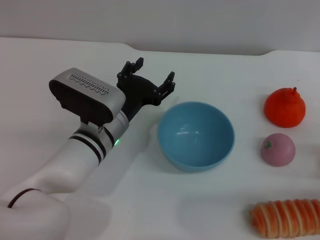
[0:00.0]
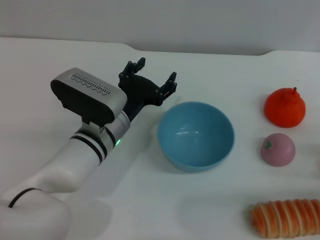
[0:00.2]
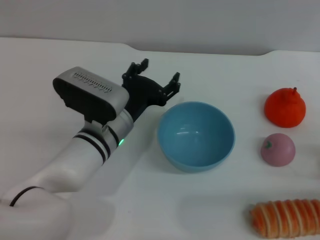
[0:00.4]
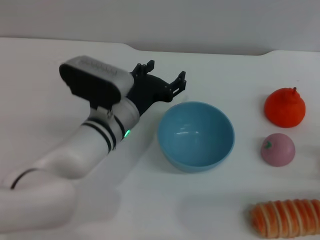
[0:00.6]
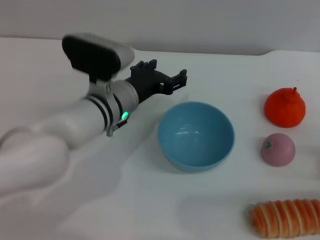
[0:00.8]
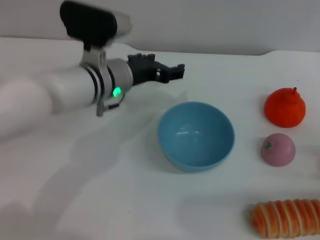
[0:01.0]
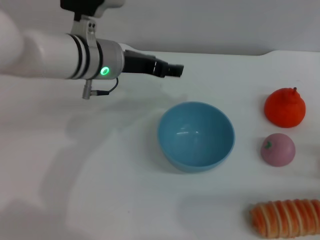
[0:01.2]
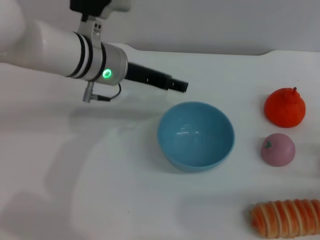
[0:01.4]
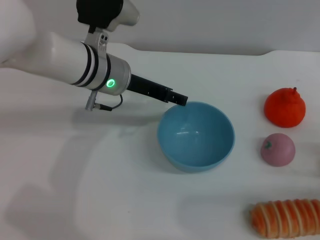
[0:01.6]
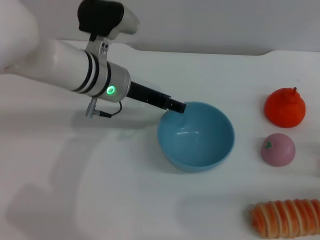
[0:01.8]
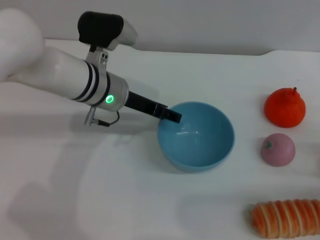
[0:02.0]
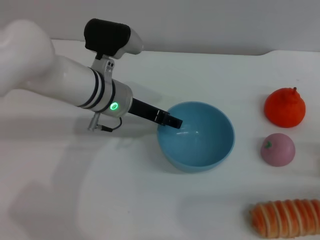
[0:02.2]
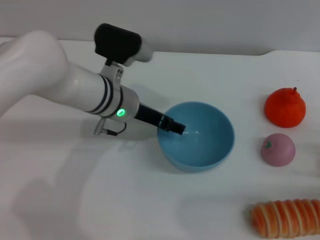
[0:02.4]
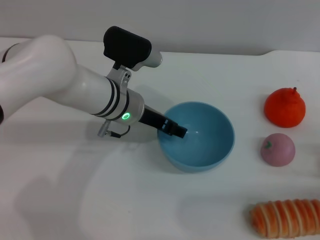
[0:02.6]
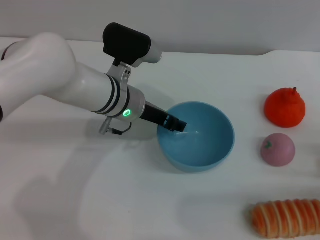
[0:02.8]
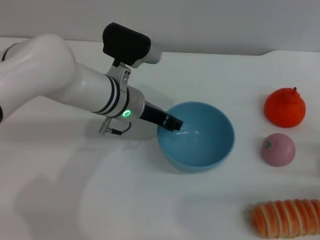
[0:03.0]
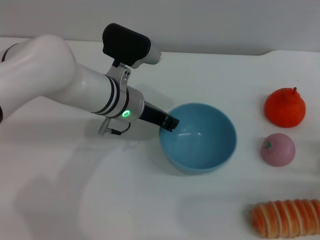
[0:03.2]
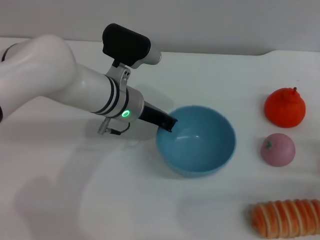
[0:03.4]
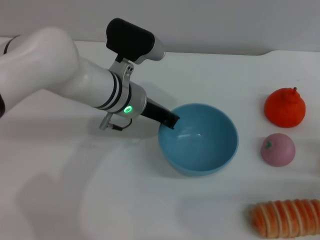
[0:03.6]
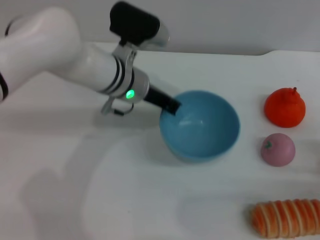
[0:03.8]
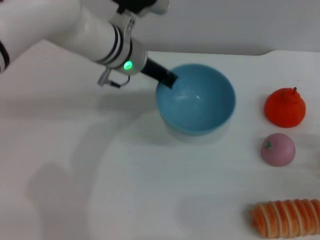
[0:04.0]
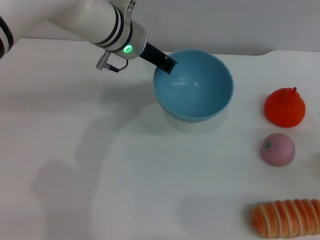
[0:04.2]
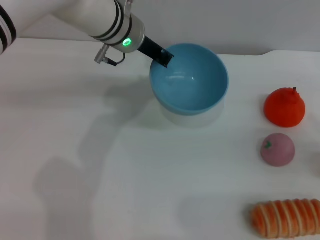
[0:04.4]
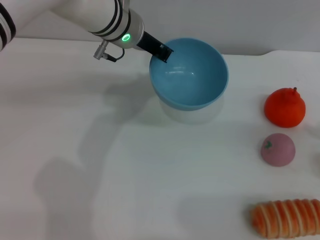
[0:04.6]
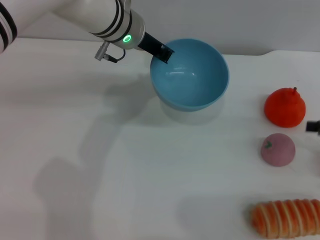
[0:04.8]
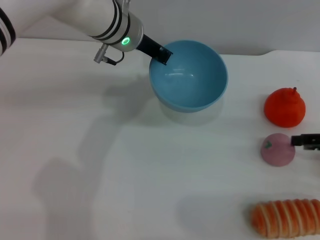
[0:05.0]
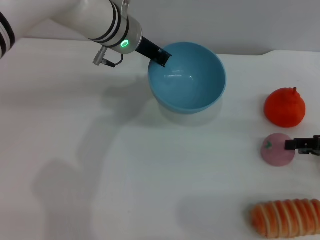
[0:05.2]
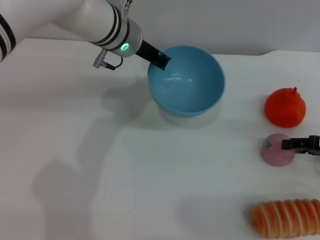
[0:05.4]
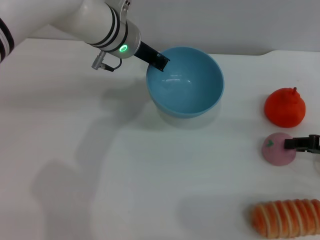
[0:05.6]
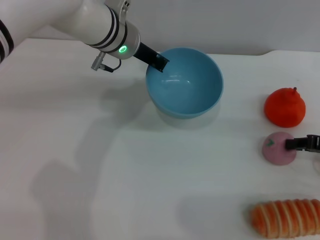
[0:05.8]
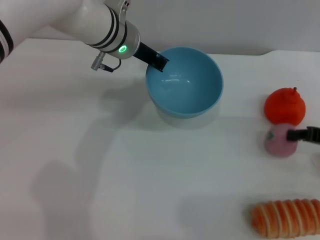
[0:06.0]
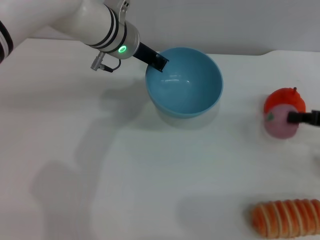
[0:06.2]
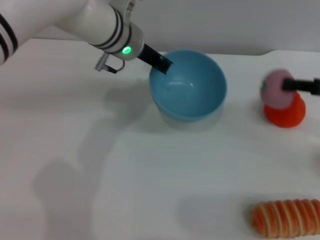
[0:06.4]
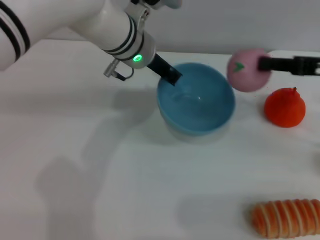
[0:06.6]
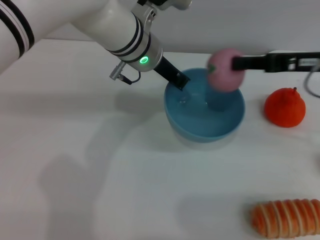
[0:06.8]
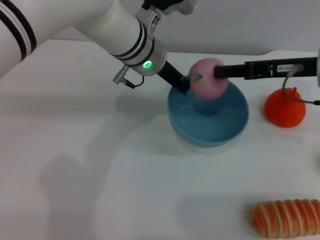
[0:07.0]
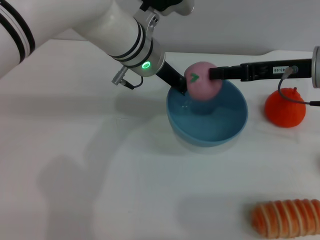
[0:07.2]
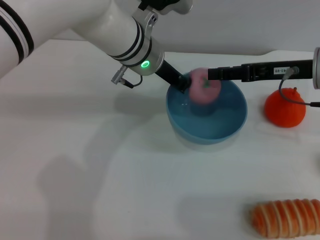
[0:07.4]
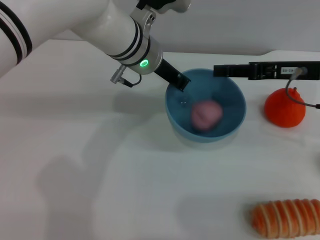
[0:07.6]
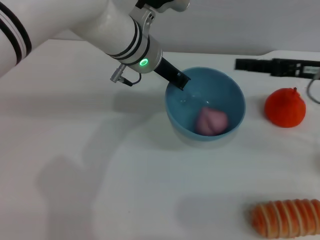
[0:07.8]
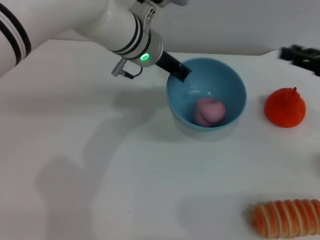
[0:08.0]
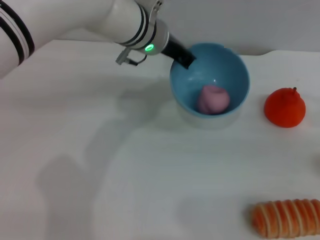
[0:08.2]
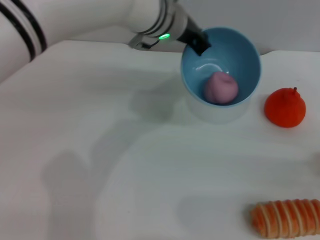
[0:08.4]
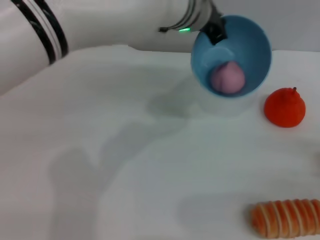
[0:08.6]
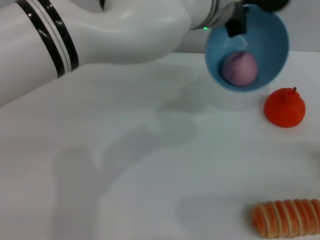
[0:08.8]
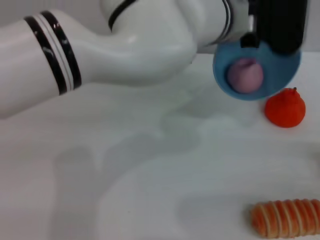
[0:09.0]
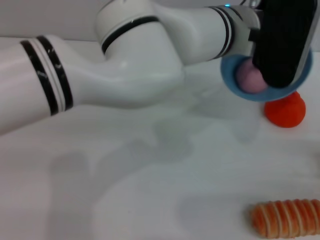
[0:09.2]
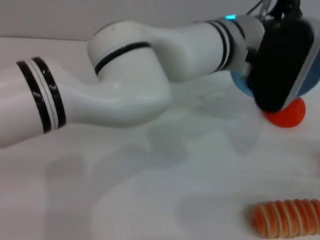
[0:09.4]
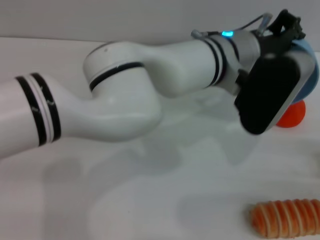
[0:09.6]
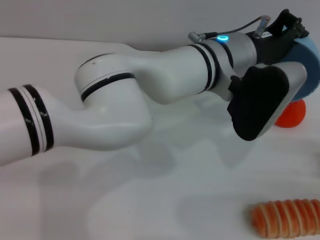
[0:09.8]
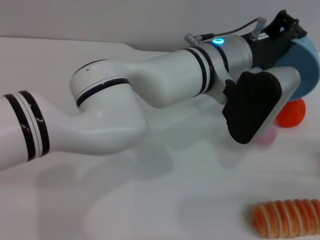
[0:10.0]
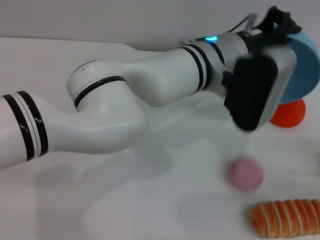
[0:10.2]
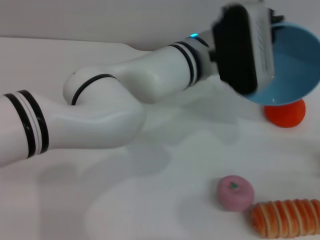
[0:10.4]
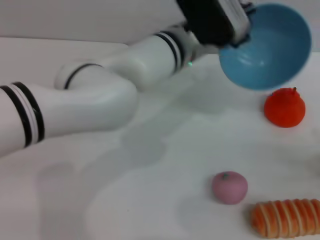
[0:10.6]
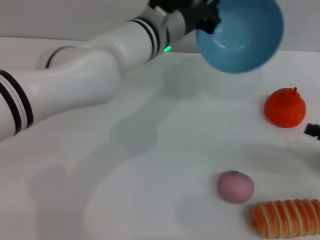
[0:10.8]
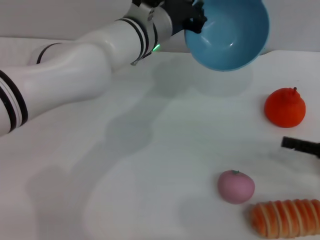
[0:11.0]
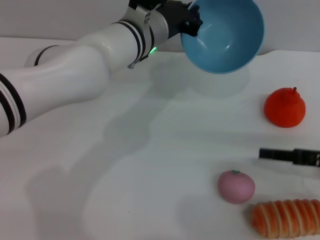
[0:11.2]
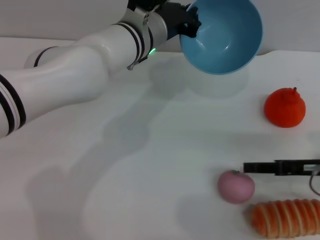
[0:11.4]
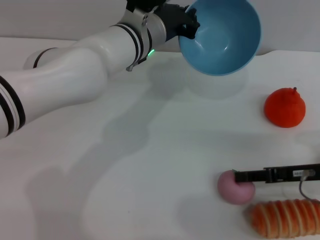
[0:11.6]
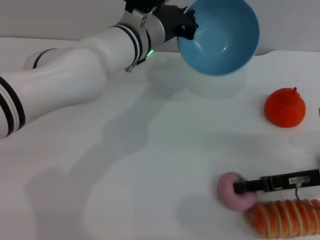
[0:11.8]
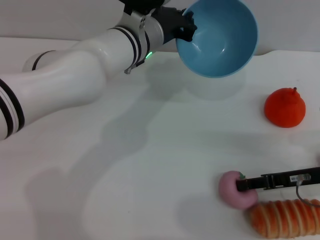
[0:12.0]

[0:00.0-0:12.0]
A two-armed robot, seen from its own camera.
Task of the whole recording: put the peach into the blue bowl and pour it out repeatedly.
Step, 0:00.0 to 0:03.6: Pick up the bowl with the left gripper.
Step, 0:03.8 to 0:06.2: Pick up the peach with the right gripper.
Step, 0:06.4 to 0:07.6: Place the peach into the bowl.
Step, 0:08.0 to 0:10.0: Pour the peach out of bowl.
0:00.0 to 0:01.6: The left gripper heads upward and forward, covering some 10 cm.
0:01.6 to 0:03.0: The left gripper ends up about 5 cm from where it was, and closes.
0:03.0 to 0:04.4: The right gripper is displaced upward by roughly 10 cm, while the left gripper heads upward and forward, covering some 10 cm, and closes.
0:04.4 to 0:06.0: The right gripper goes approximately 5 cm to the left and forward, and closes up.
0:06.0 to 0:07.6: The right gripper is displaced to the left and upward by approximately 15 cm, and opens up.
0:07.6 to 0:09.0: The left gripper travels to the right by roughly 10 cm. Meanwhile the right gripper heads to the right, backward and downward, covering roughly 25 cm.
0:09.0 to 0:10.4: The left gripper goes about 5 cm downward.
0:10.4 to 0:12.0: The right gripper is displaced to the left and forward by about 15 cm, while the left gripper heads to the left, covering some 10 cm.

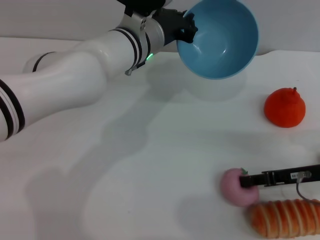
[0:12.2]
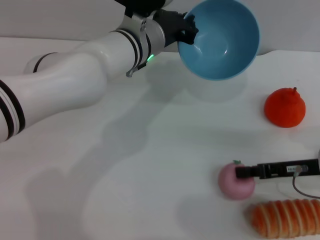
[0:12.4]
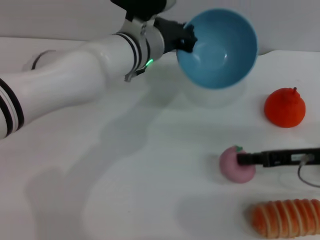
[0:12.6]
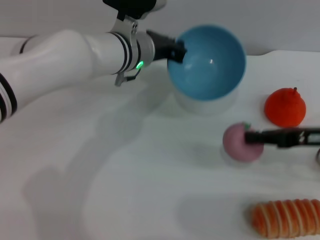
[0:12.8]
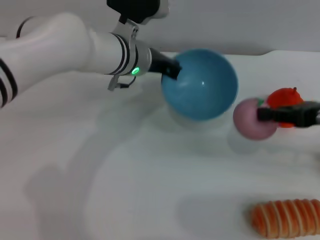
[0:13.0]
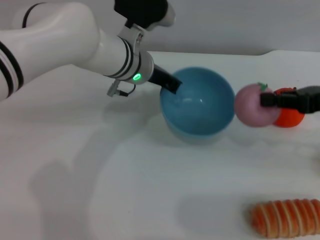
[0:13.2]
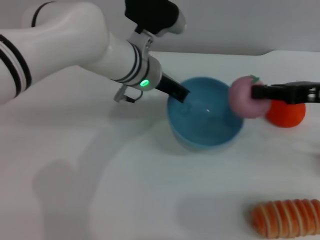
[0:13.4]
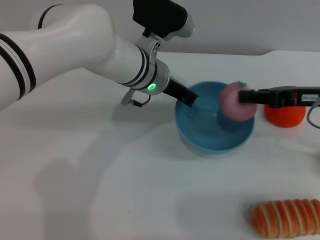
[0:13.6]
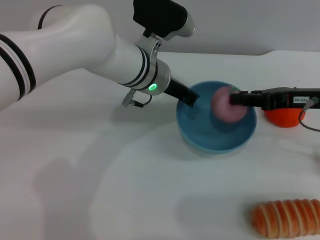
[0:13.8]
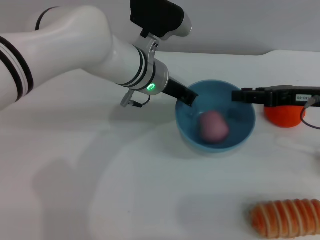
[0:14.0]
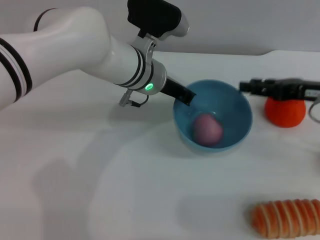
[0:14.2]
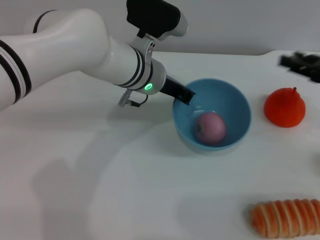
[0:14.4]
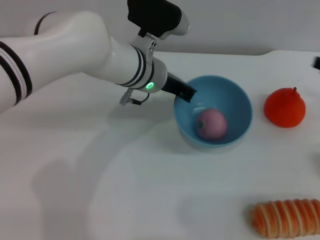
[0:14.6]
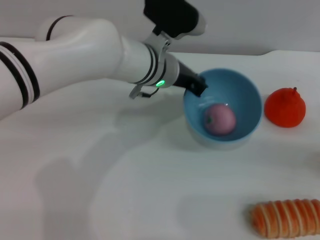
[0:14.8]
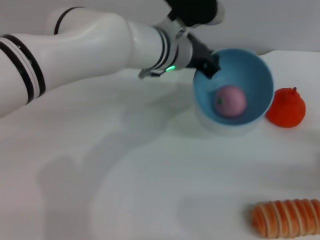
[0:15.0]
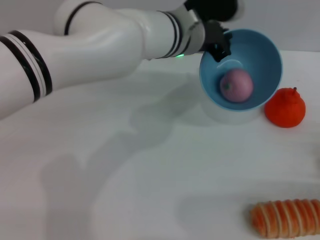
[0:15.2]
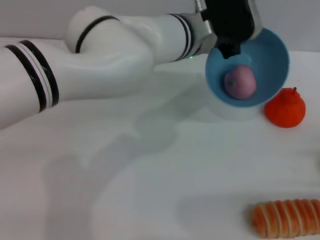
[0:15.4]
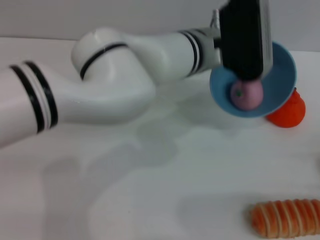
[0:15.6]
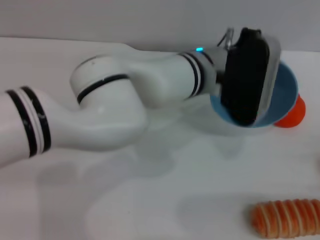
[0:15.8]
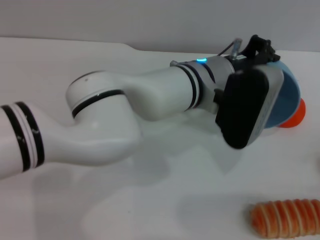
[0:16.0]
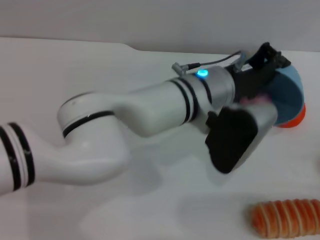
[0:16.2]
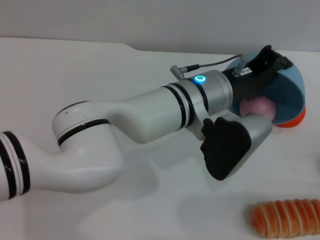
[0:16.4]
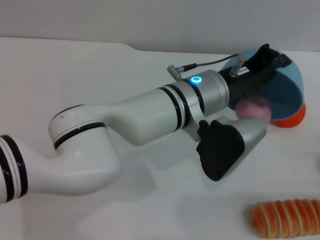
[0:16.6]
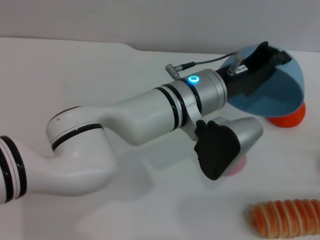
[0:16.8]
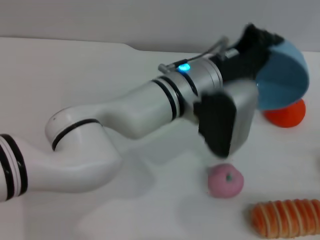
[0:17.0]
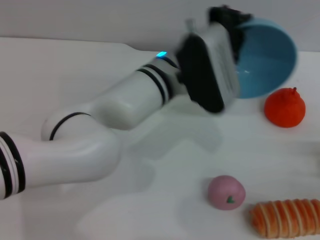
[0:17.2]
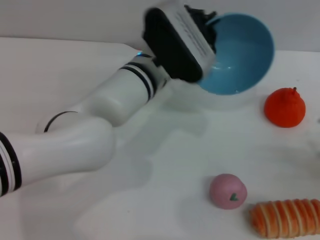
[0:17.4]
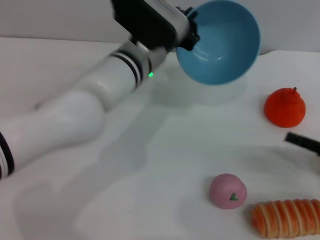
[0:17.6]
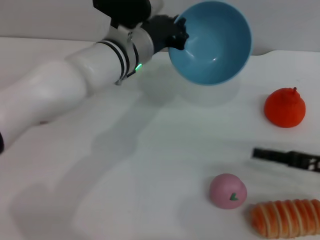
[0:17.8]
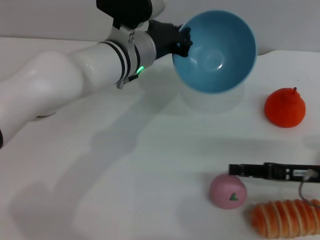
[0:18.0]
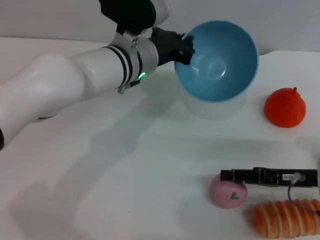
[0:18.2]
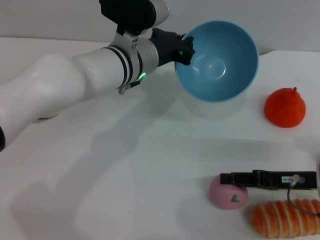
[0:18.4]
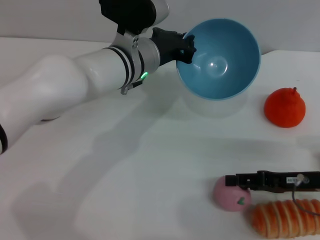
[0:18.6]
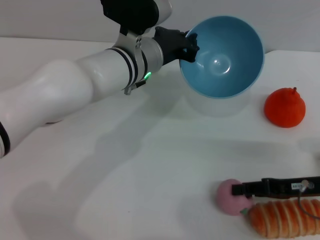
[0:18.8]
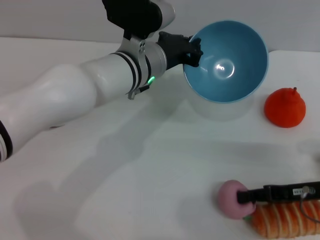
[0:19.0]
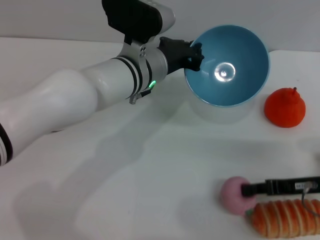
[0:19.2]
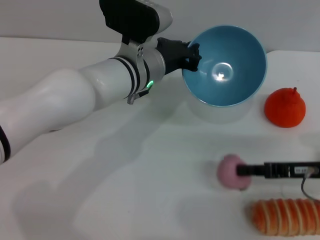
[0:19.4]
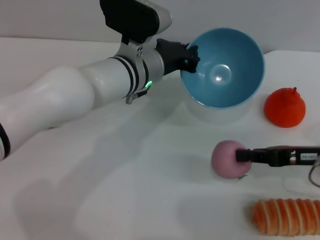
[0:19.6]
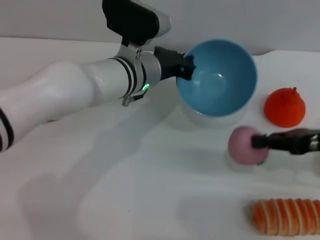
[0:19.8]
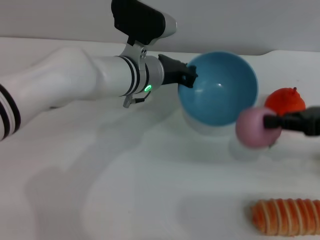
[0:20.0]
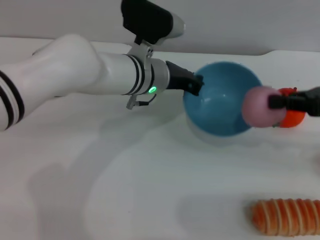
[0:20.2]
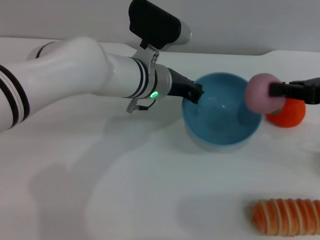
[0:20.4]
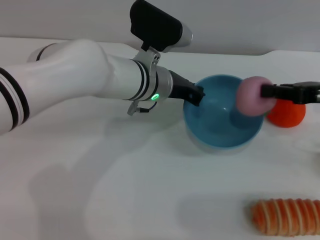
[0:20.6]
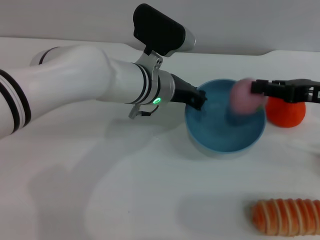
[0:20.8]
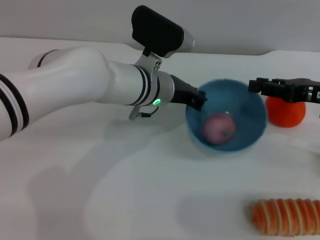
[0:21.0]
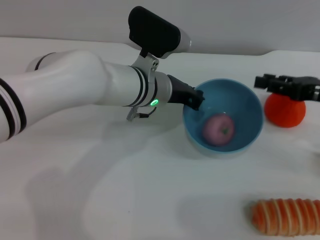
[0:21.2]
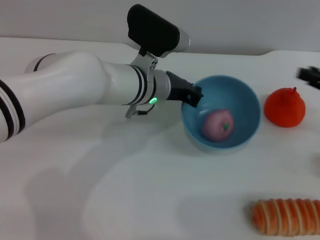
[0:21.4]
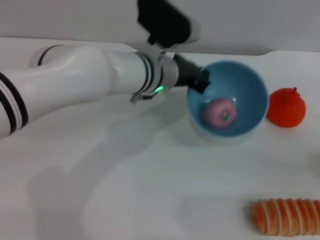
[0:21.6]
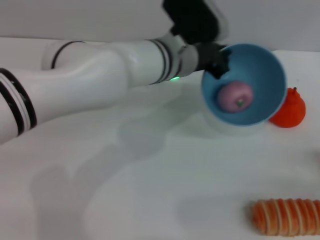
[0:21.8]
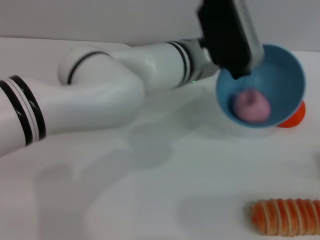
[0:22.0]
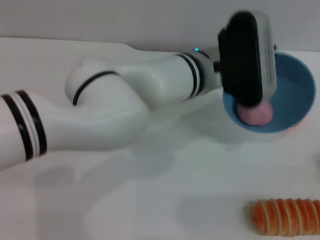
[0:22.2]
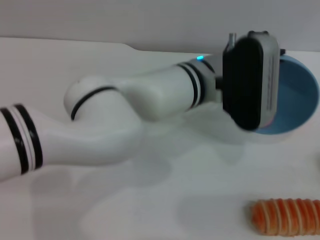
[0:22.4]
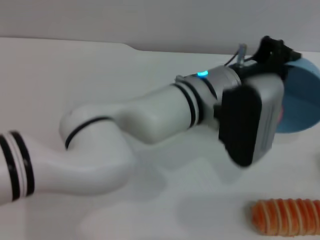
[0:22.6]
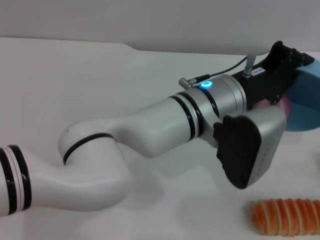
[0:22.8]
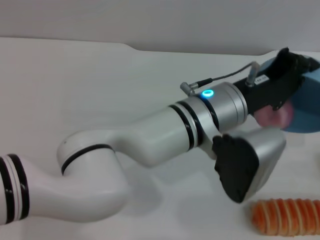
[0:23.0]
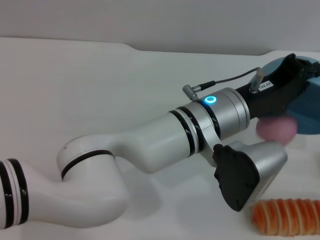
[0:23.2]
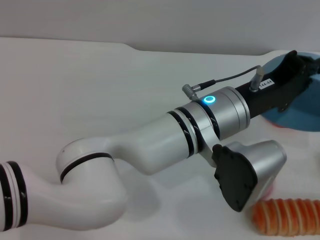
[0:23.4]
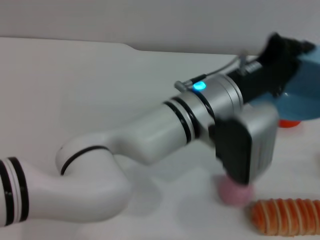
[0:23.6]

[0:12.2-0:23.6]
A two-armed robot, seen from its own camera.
Task of the whole recording: put the peach into the blue bowl and pour it out repeatedly.
Step, 0:13.0 to 0:14.2: Place the peach into the bowl.
Step, 0:14.4 to 0:16.6: Pour the peach out of bowl.
Step, 0:17.0 to 0:19.6: Pick up the peach with the right gripper.
Step, 0:19.8 to 0:21.0: Place the peach into the bowl.
Step, 0:21.2 to 0:23.2: Pour the peach out of bowl.
0:12.2 to 0:13.6: The right gripper shifts about 10 cm upward, and closes.
0:13.6 to 0:15.0: The right gripper moves to the right, downward and backward, roughly 20 cm, and opens.
0:15.0 to 0:16.4: The grippers both shift backward by roughly 5 cm.
0:16.4 to 0:17.8: Both grippers travel together to the left and forward, approximately 10 cm.
0:17.8 to 0:19.4: The right gripper closes up.
0:19.4 to 0:20.8: The right gripper goes approximately 10 cm upward and forward.
0:20.8 to 0:22.2: The left gripper travels to the right by some 5 cm. Meanwhile the right gripper moves backward, to the right and downward, about 25 cm, and opens.
0:22.2 to 0:23.6: The left gripper goes roughly 5 cm backward.
